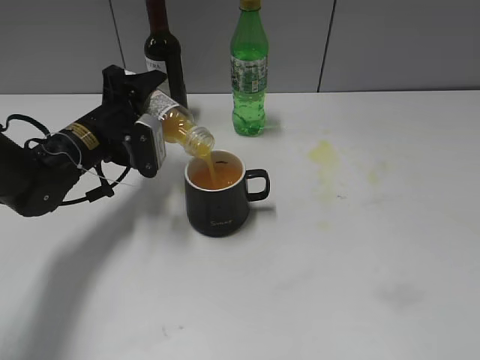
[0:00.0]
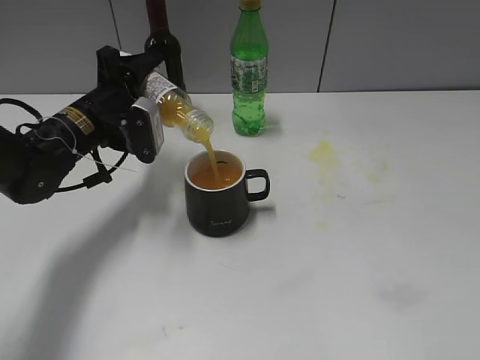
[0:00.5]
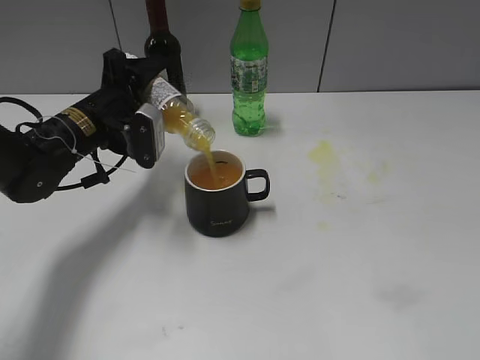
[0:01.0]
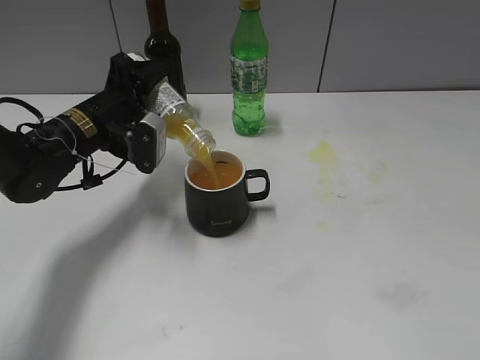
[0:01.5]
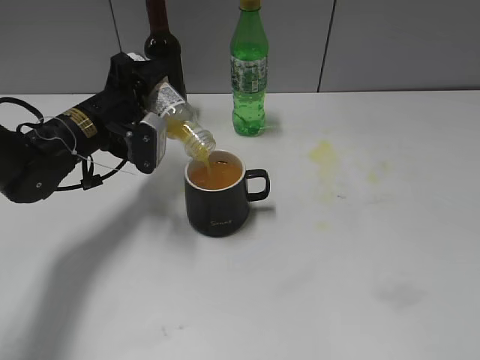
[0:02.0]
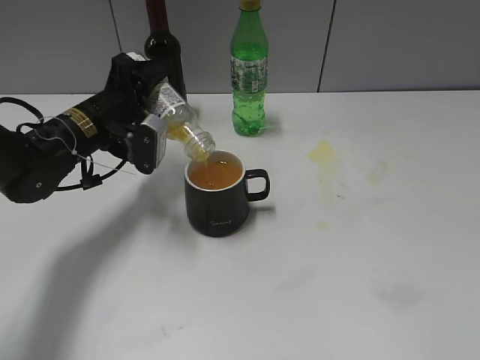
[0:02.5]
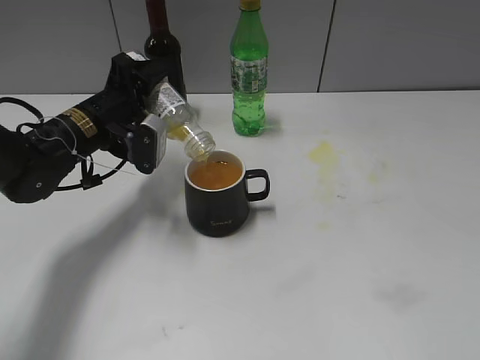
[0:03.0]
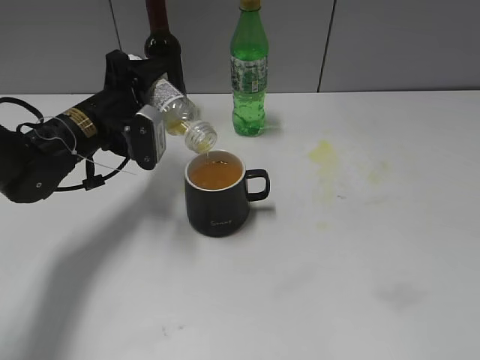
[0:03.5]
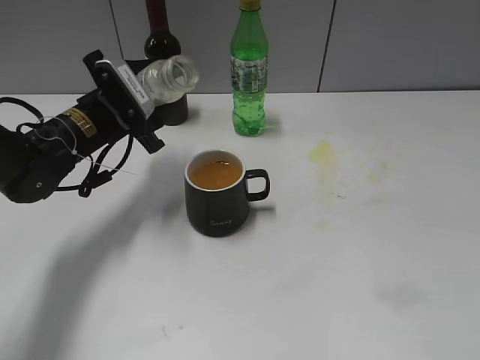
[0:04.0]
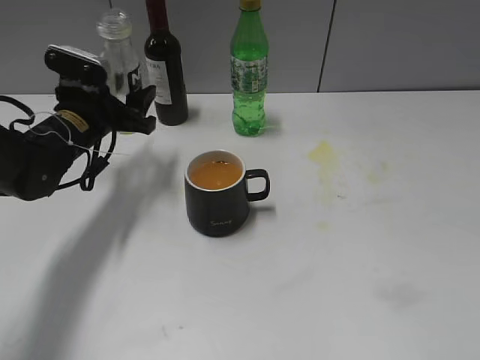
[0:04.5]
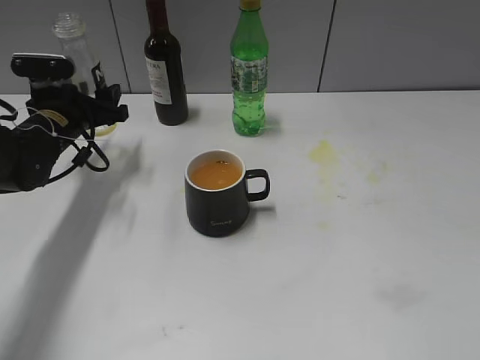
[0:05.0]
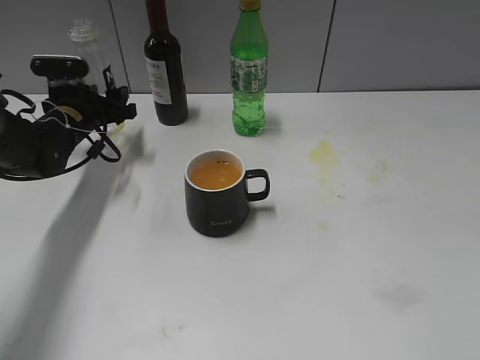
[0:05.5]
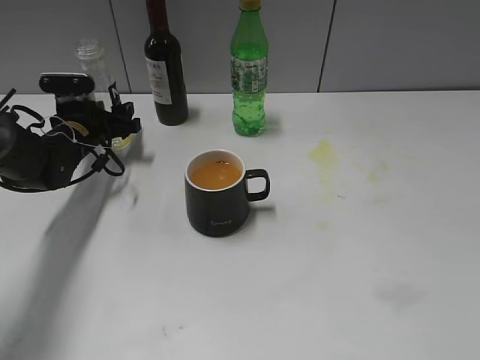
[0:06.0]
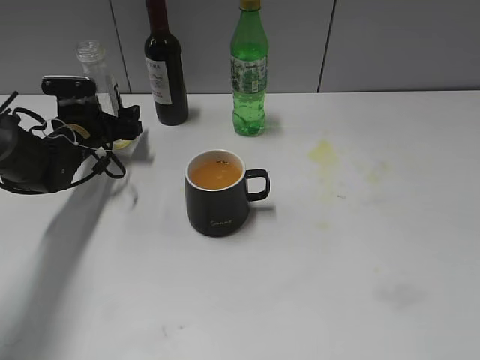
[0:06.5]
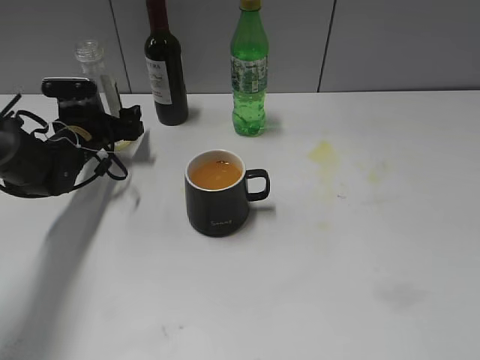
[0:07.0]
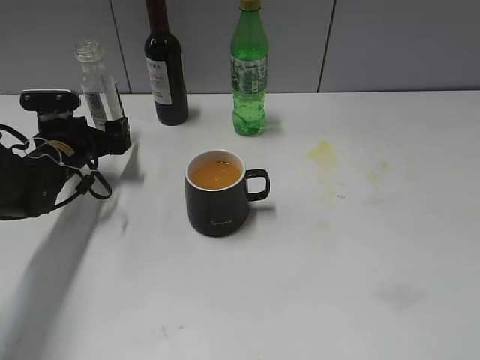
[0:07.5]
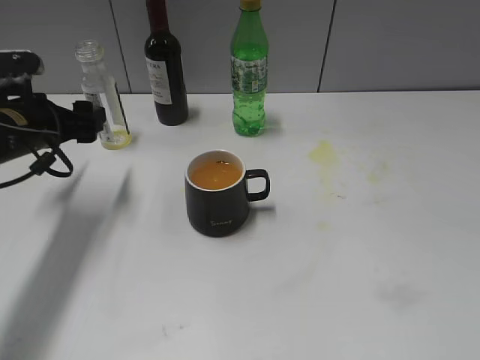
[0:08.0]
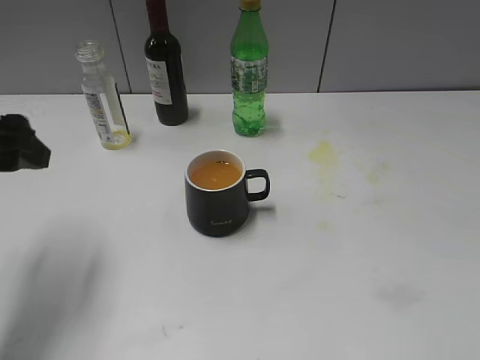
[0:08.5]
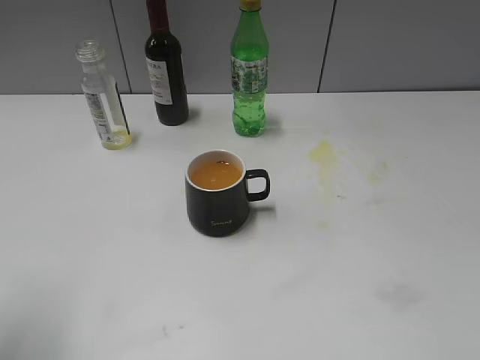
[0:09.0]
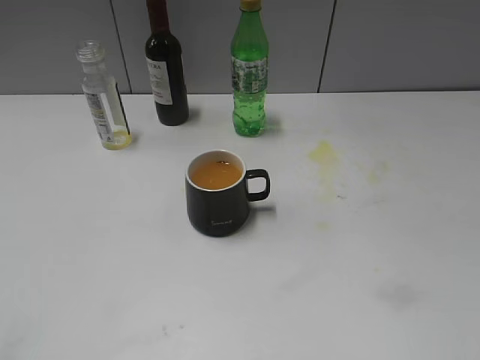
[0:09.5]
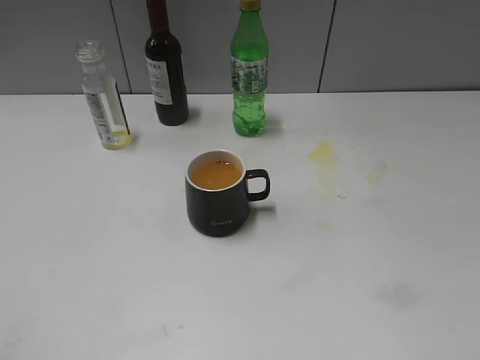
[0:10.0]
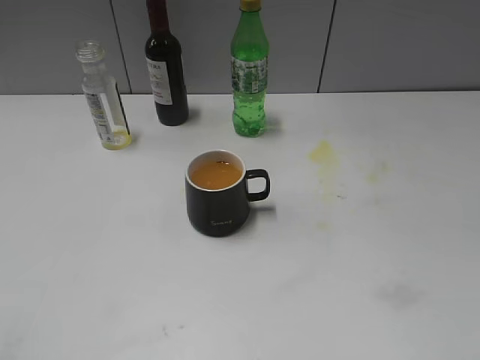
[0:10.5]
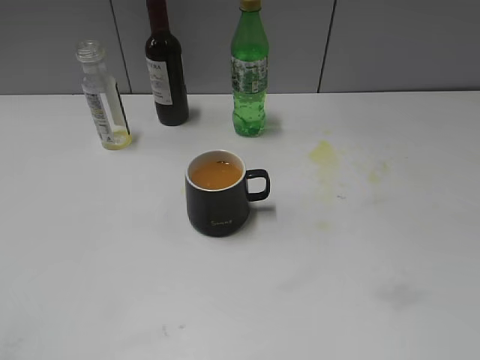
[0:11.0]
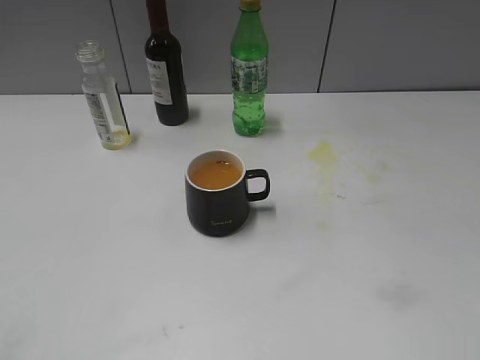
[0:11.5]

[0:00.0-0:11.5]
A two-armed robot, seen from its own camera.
Step, 0:00.0 to 0:03.5: Pour the orange juice from bottle to cup with left gripper.
Step, 0:04.0 to 0:06.5: Place the orange juice bottle on the table with left gripper.
0:00.0 to 0:02.0: The grippers move only a little.
0:04.0 to 0:06.0: The left gripper moves downward, forward and to the left, some 10 cm.
0:06.0 to 0:07.5: The left gripper opens.
0:07.5 to 0:09.5: The left gripper travels backward and upward by approximately 40 cm.
